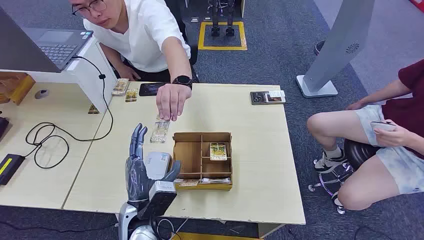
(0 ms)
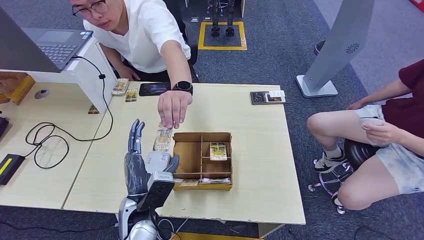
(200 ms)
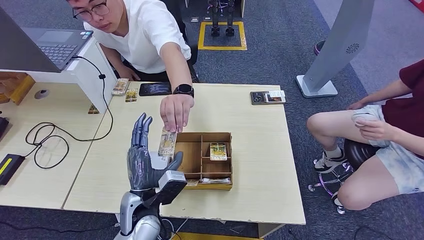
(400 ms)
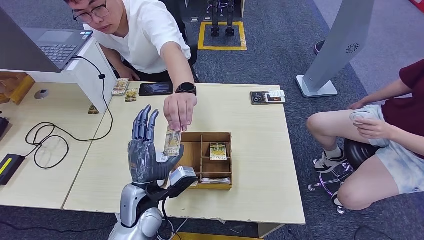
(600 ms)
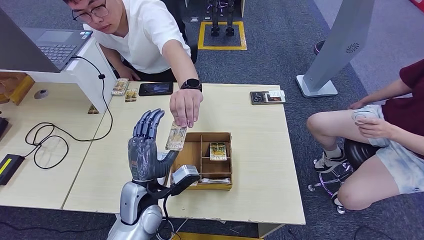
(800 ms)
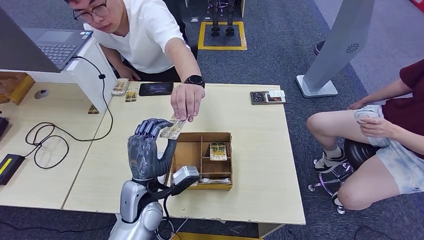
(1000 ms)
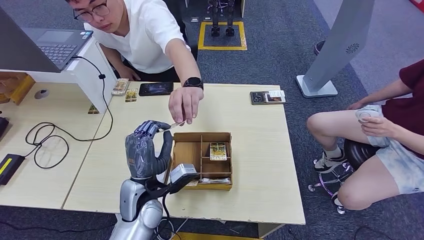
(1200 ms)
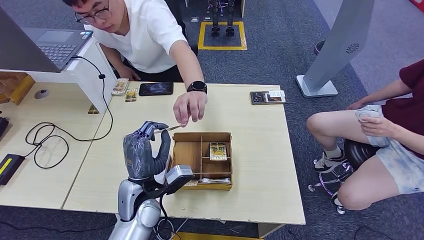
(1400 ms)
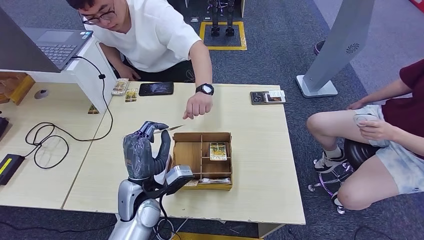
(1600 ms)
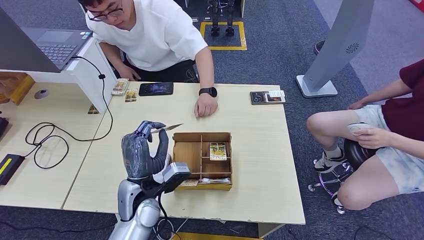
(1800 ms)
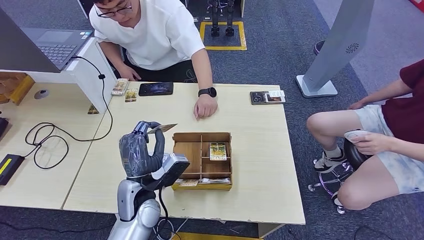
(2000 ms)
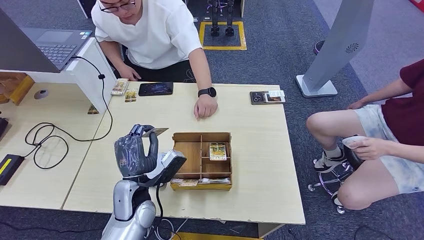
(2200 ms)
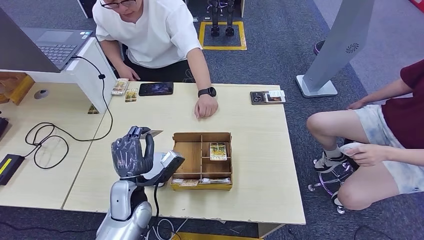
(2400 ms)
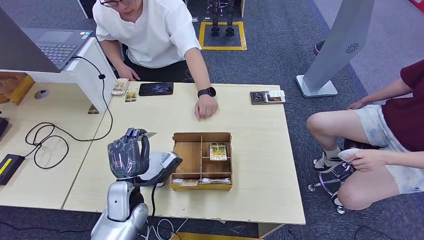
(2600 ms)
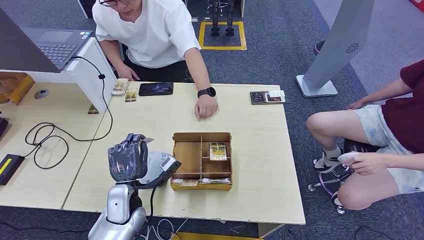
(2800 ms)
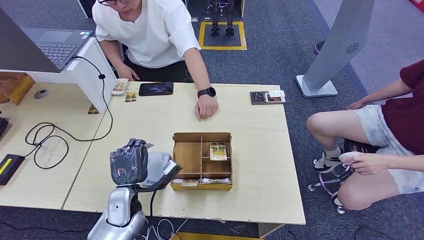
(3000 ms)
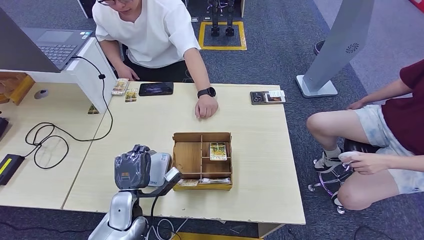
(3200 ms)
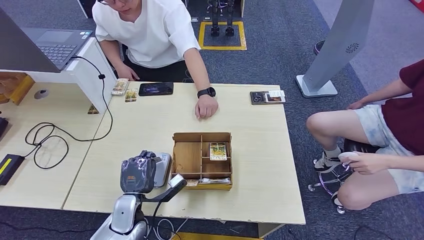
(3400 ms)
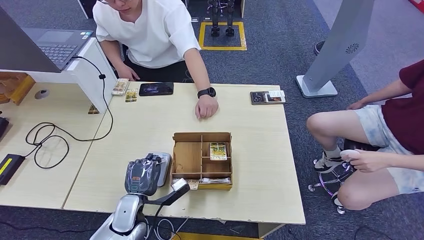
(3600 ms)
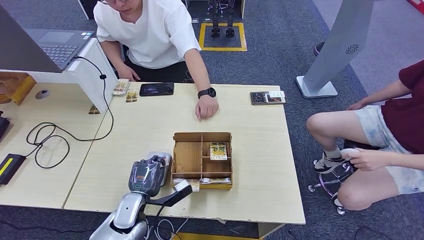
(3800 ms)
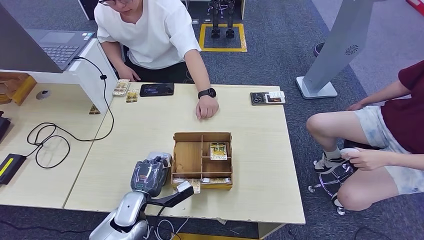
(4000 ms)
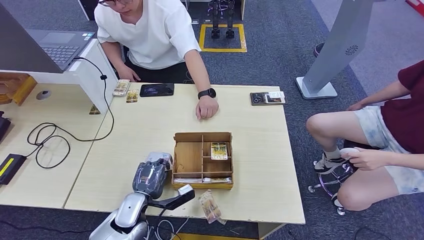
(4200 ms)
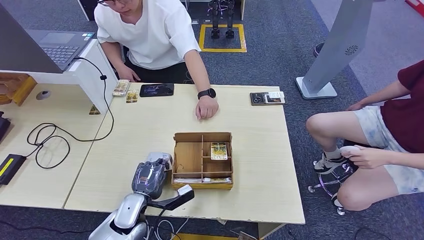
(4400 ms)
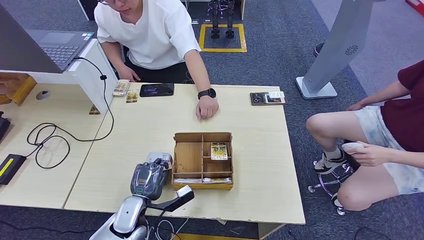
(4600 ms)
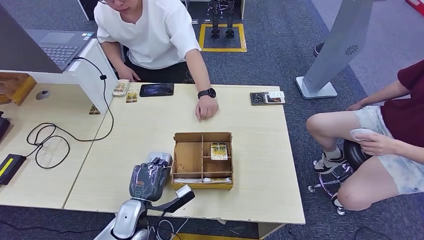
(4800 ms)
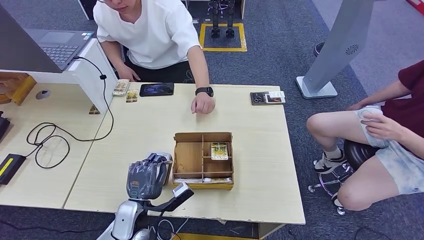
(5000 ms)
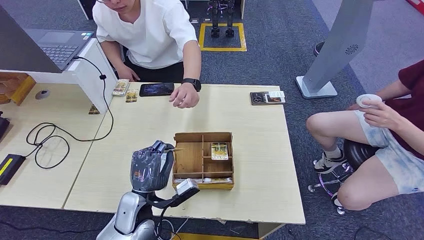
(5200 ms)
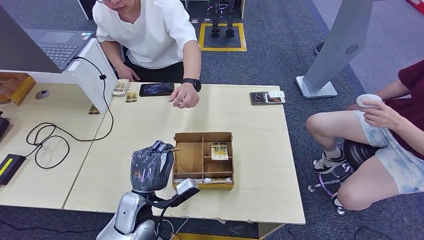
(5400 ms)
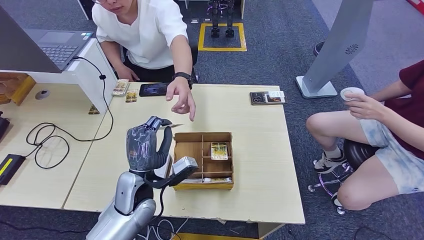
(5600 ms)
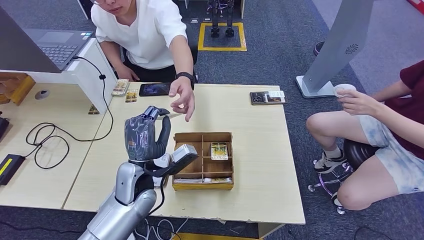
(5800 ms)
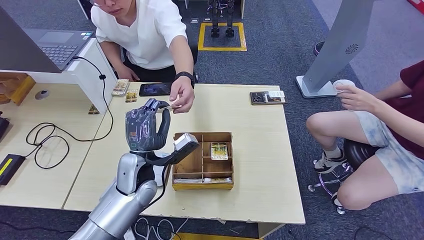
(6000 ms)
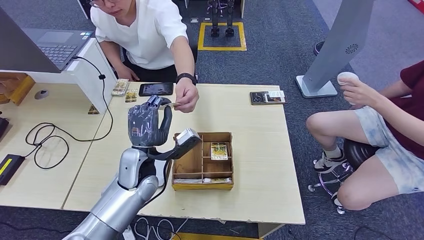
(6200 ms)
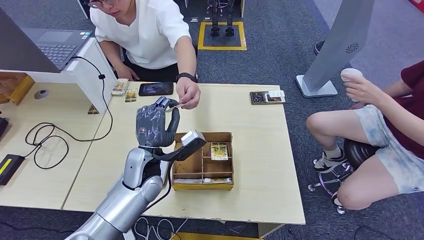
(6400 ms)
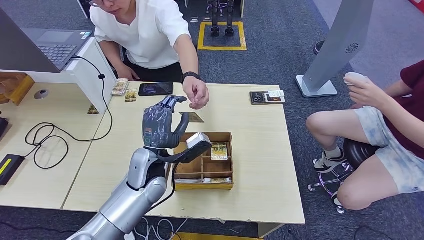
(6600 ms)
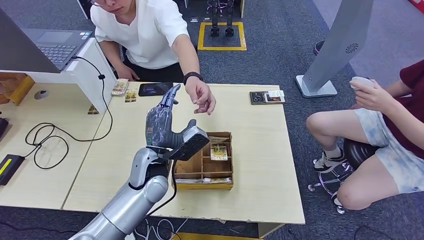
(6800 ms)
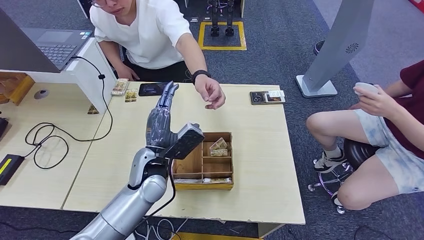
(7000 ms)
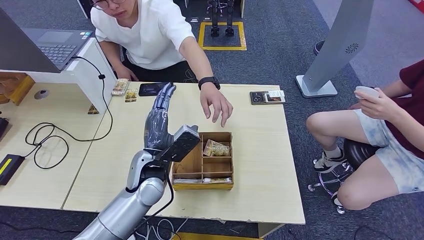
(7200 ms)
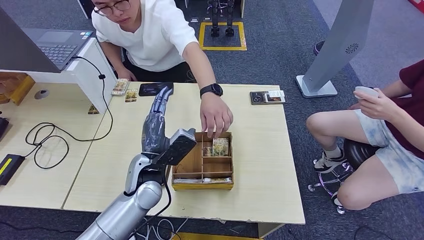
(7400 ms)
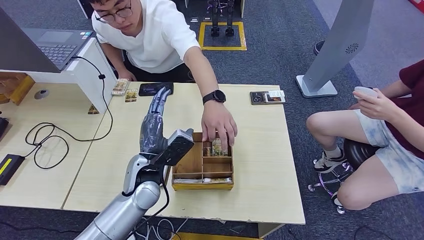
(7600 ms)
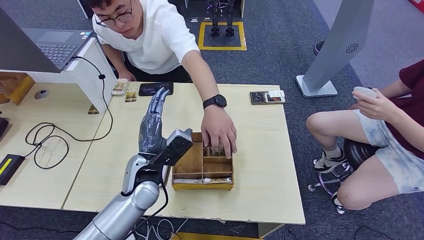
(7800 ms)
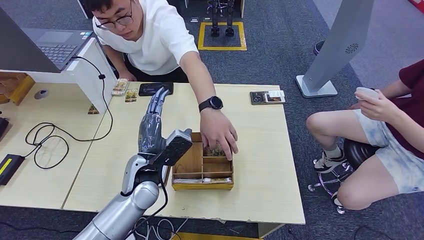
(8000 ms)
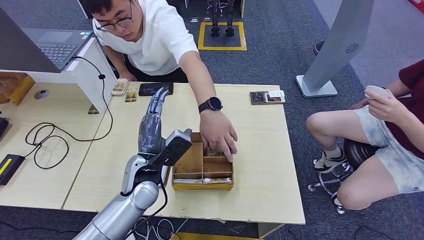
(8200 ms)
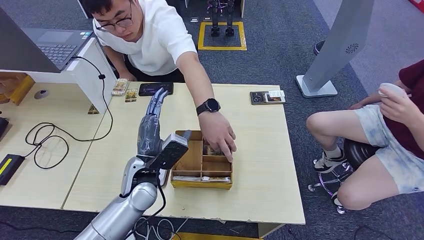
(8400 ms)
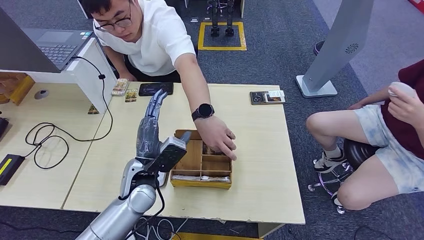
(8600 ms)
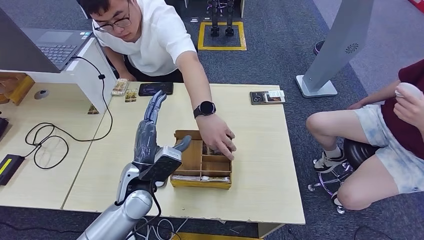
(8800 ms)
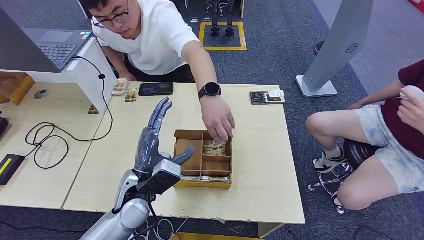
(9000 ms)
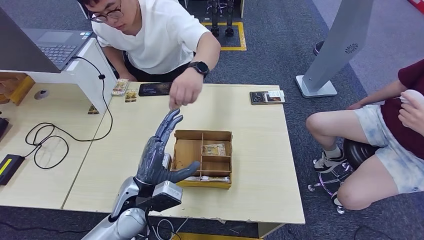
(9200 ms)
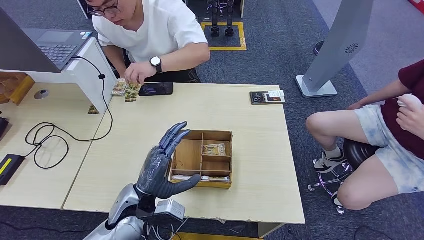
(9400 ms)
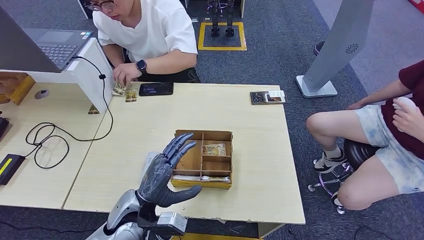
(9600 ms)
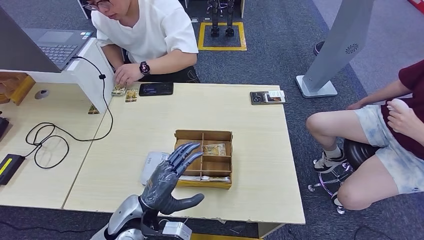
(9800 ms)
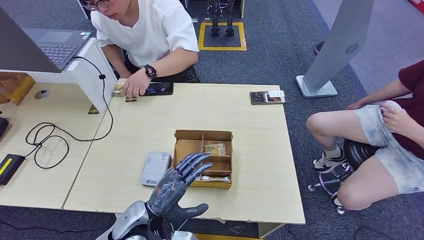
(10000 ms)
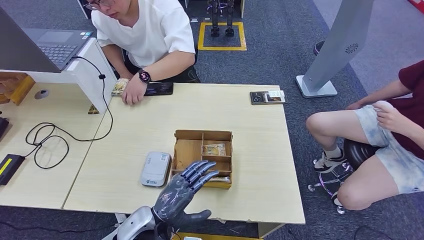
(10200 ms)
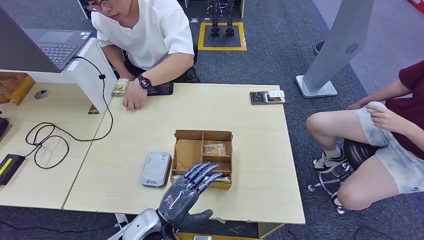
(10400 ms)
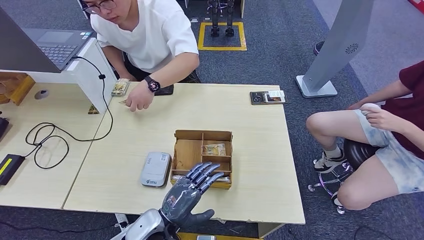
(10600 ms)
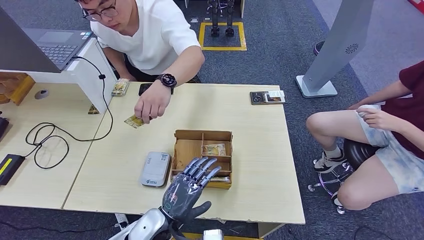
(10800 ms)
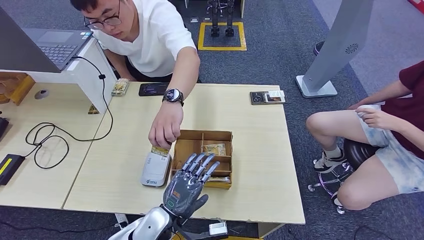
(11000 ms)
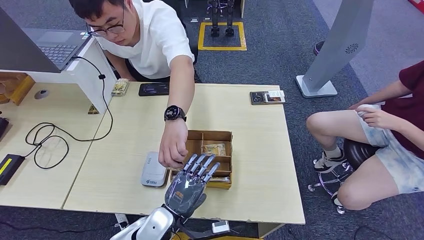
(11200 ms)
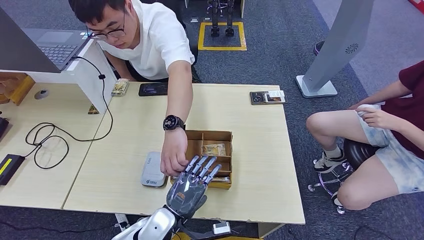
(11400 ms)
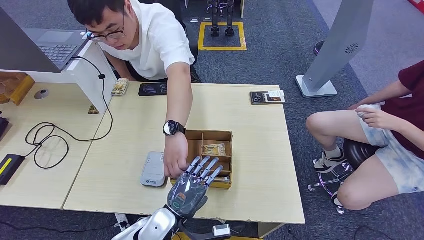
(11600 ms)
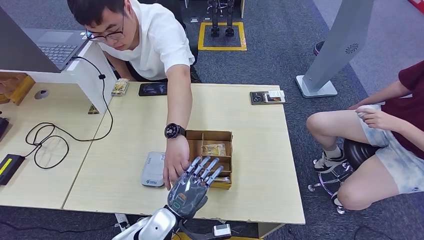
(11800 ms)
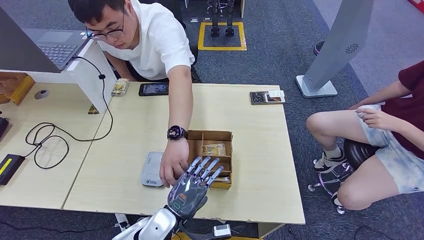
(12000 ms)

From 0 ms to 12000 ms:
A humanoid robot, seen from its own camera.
Step, from 0 ms to 1800 ms: Take the ID card from the person's hand.
Step, from 2000 ms to 5000 ms: Place the ID card on the card reader.
Step, from 5200 ms to 6000 ms: Hand the ID card to the person.
From 1600 ms to 3000 ms: The left hand goes about 10 cm downward and to the left.
From 4400 ms to 6000 ms: The left hand shifts some 15 cm upward and forward.
From 7600 ms to 9000 ms: The hands make only small movements.
From 9000 ms to 10400 ms: The left hand moves downward and backward, about 10 cm.

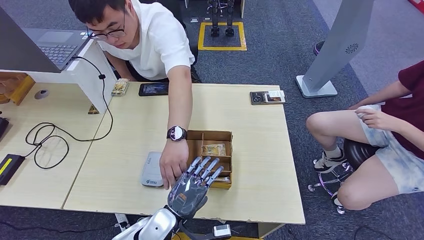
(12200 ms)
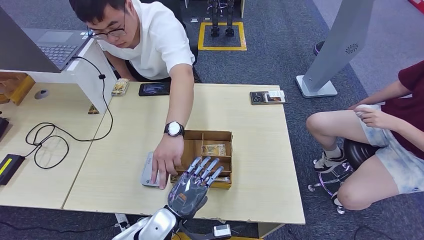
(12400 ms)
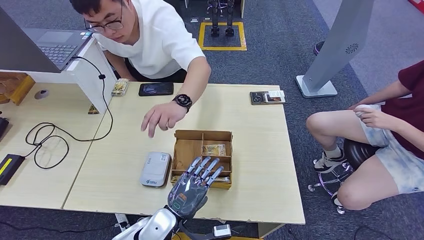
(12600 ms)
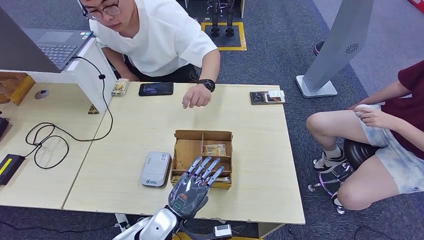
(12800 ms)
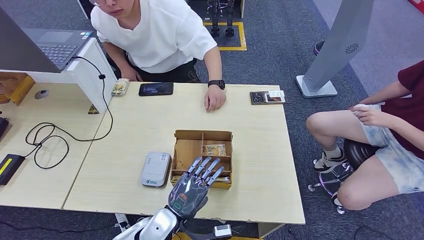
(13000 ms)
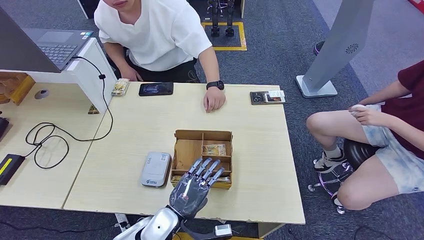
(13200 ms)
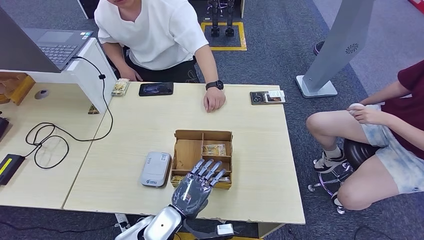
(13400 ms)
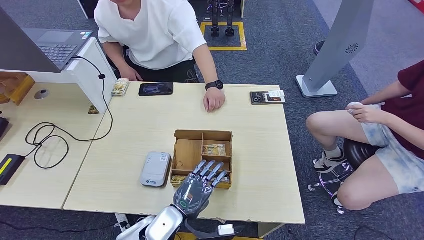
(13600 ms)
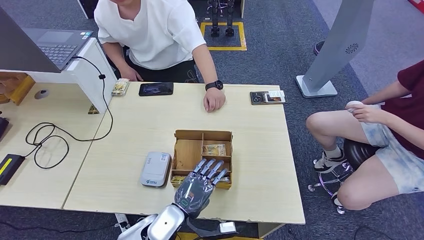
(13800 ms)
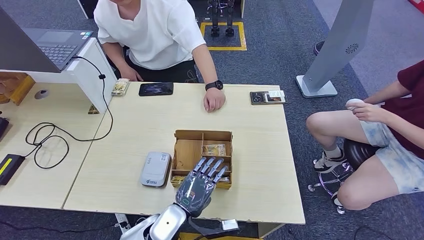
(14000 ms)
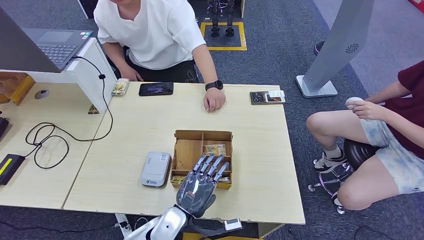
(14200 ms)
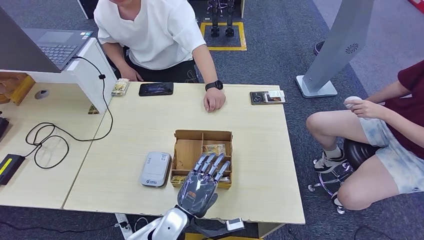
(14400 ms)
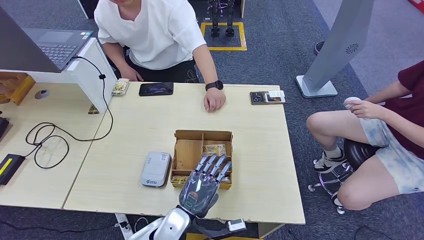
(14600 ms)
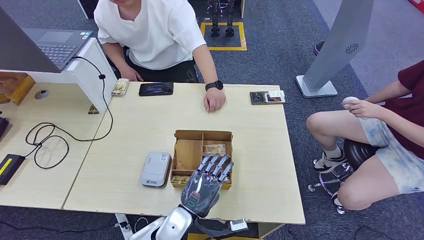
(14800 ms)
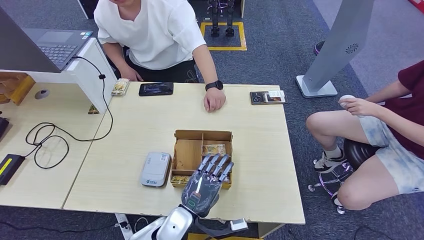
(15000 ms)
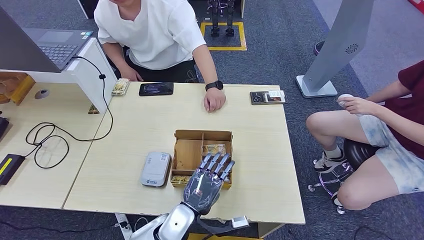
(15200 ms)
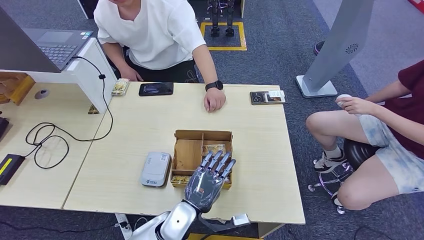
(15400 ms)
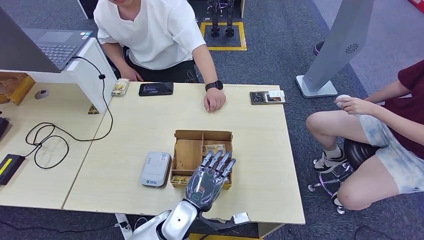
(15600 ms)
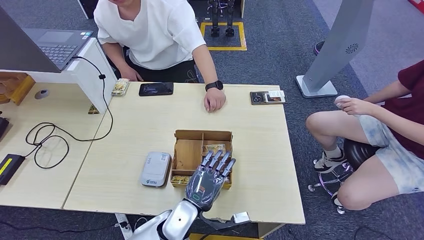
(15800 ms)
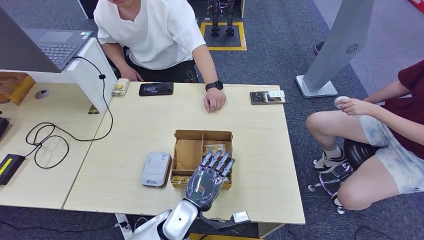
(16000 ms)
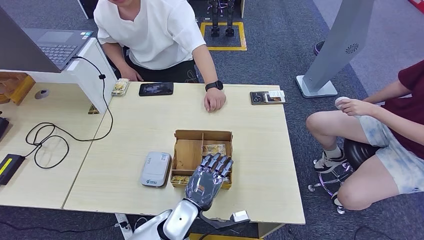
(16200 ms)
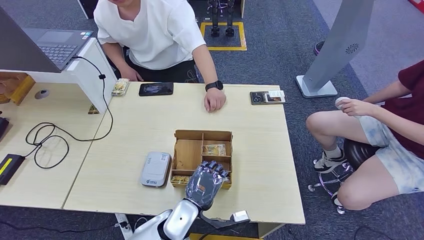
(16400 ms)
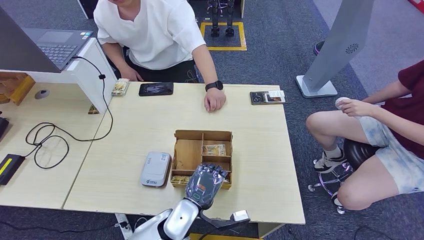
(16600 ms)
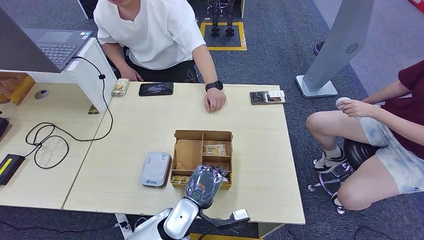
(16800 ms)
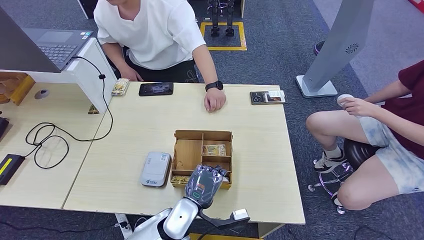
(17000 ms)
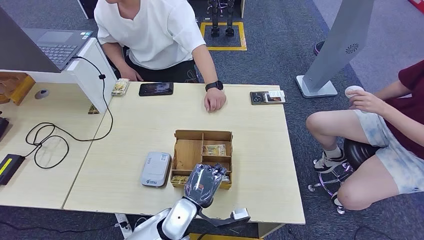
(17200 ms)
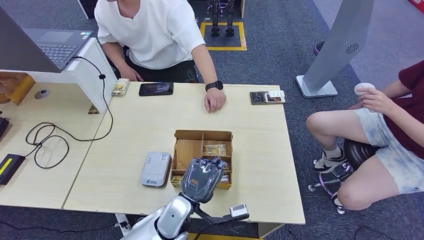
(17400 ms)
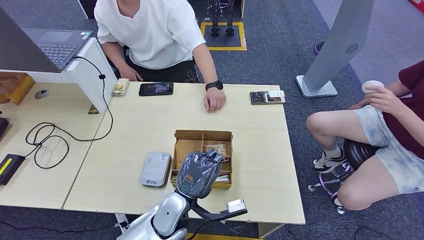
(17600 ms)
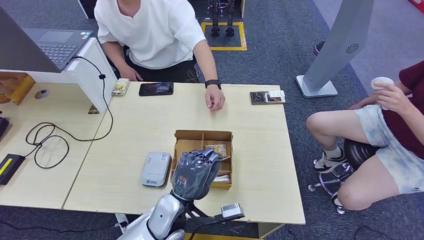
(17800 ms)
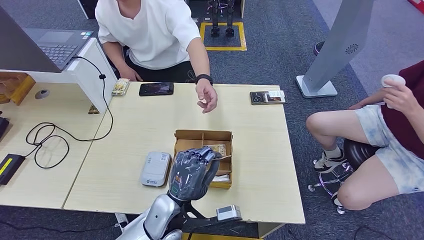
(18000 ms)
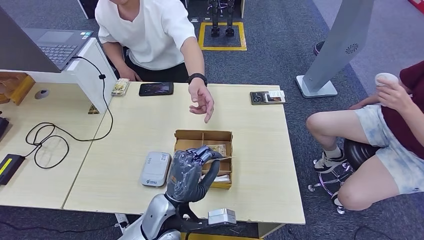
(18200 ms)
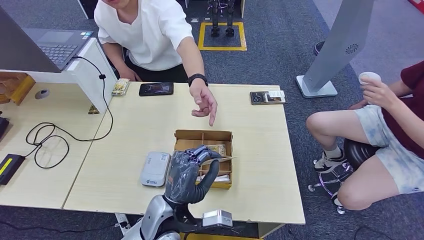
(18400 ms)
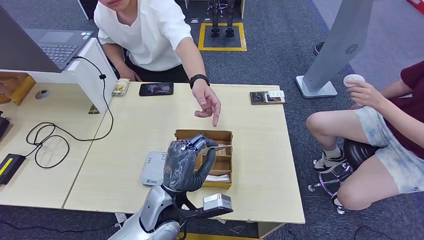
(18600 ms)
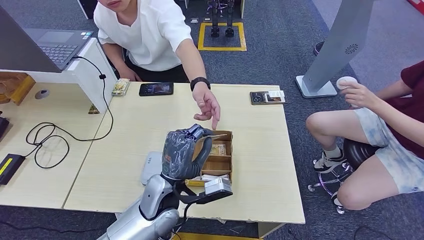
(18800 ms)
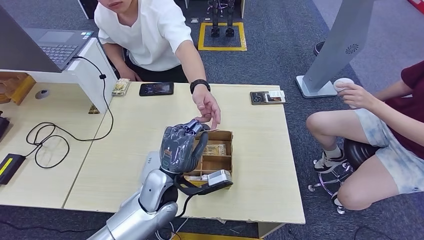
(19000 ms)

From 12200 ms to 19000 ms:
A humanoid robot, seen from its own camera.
Step, from 12200 ms to 17800 ms: Pick up the room key from the key card box.
From 12200 ms to 16200 ms: The hands make only small movements.
From 17600 ms to 19000 ms: The left hand heads upward, covering roughly 5 cm.
